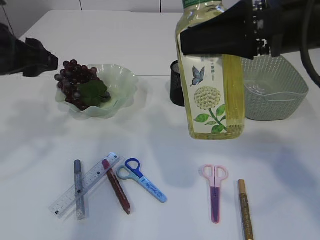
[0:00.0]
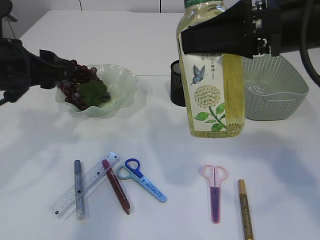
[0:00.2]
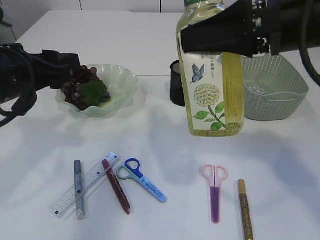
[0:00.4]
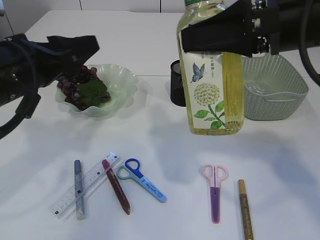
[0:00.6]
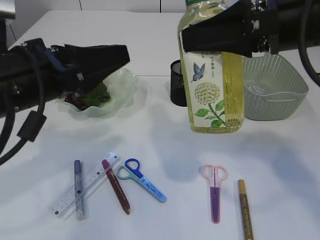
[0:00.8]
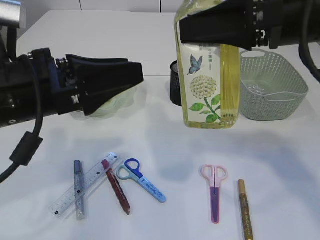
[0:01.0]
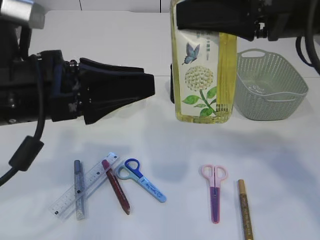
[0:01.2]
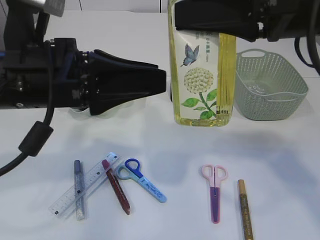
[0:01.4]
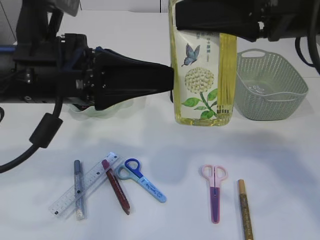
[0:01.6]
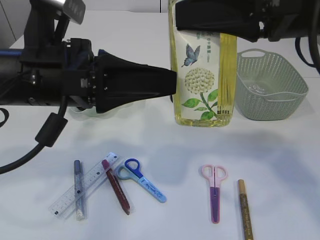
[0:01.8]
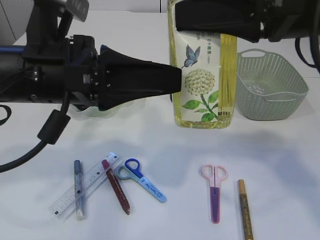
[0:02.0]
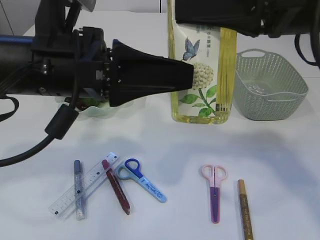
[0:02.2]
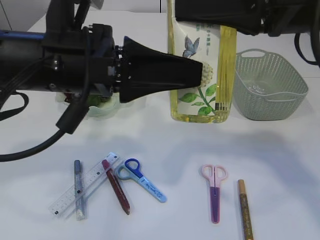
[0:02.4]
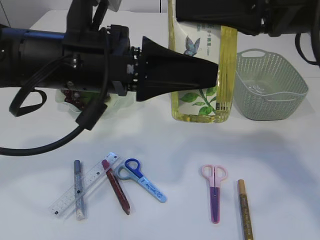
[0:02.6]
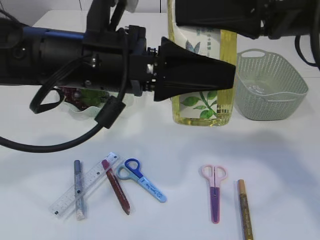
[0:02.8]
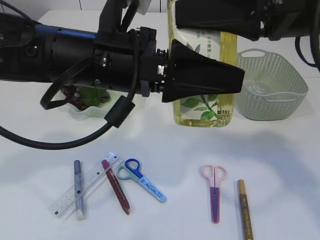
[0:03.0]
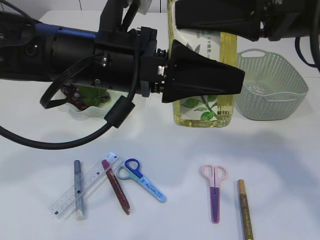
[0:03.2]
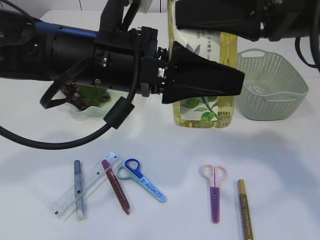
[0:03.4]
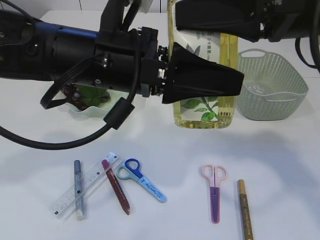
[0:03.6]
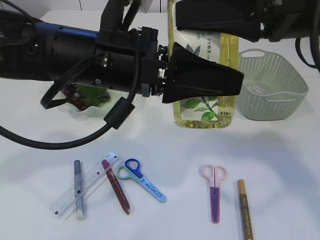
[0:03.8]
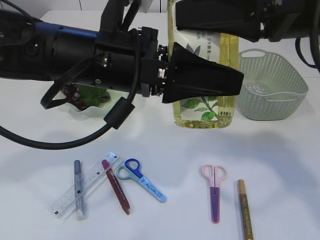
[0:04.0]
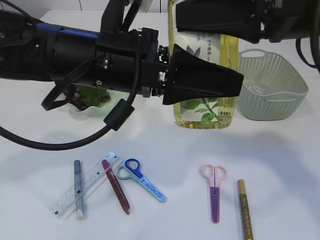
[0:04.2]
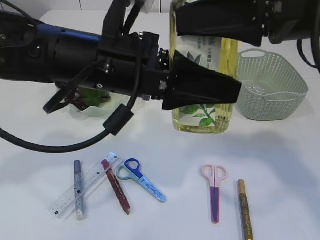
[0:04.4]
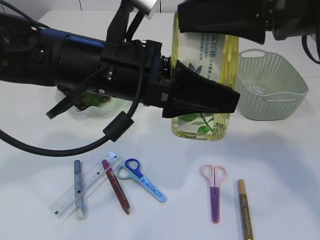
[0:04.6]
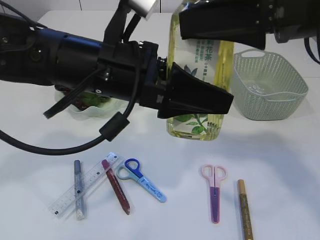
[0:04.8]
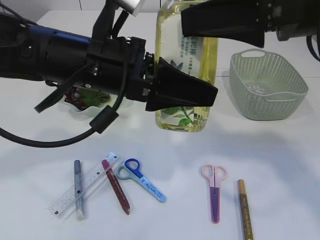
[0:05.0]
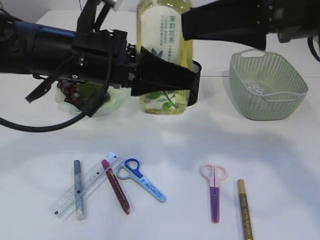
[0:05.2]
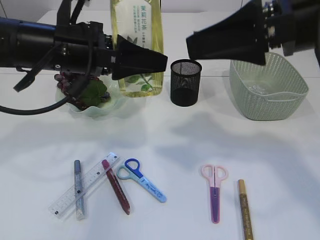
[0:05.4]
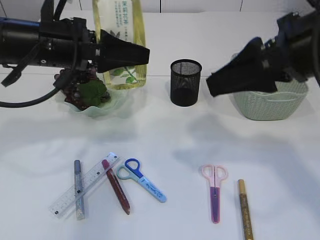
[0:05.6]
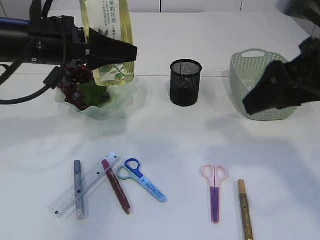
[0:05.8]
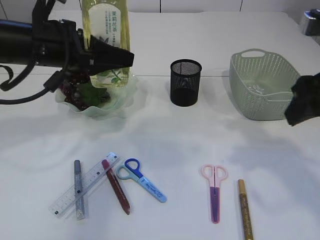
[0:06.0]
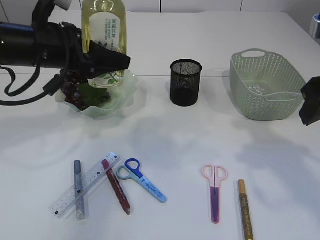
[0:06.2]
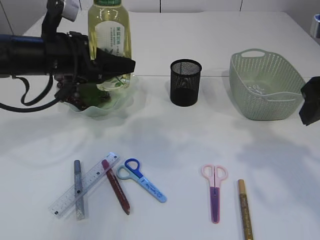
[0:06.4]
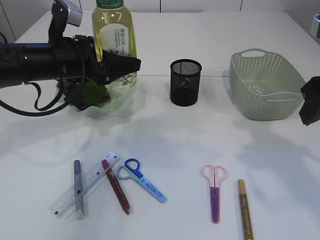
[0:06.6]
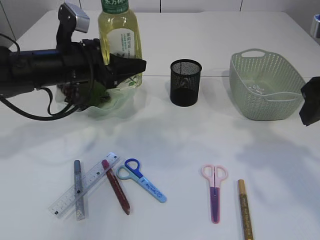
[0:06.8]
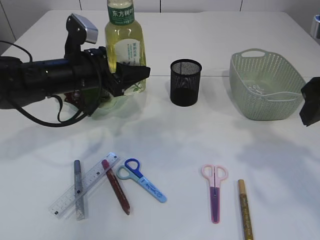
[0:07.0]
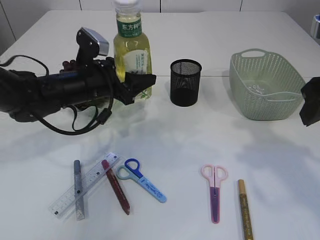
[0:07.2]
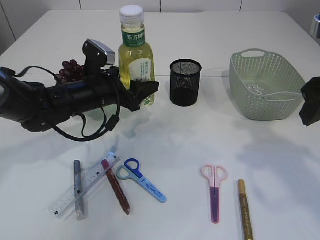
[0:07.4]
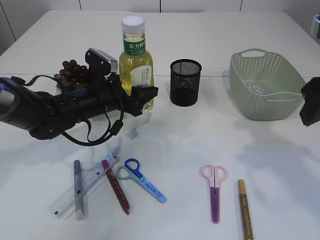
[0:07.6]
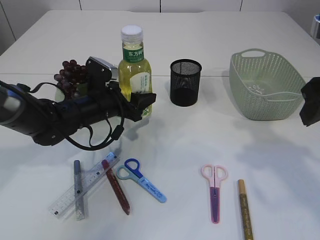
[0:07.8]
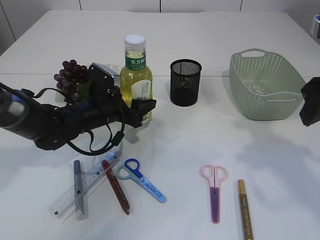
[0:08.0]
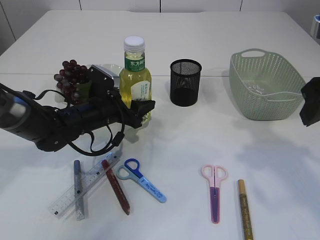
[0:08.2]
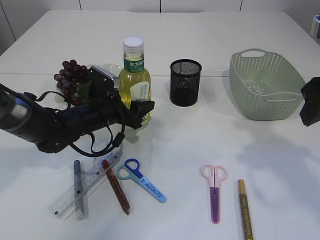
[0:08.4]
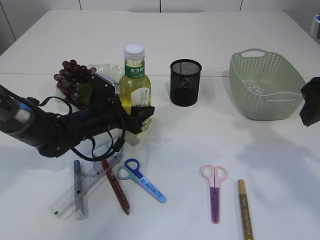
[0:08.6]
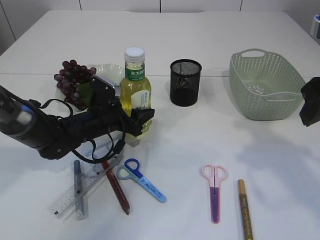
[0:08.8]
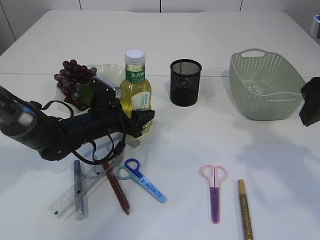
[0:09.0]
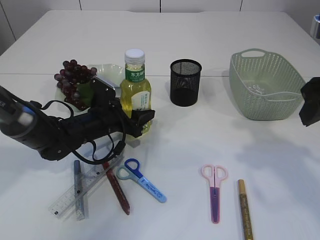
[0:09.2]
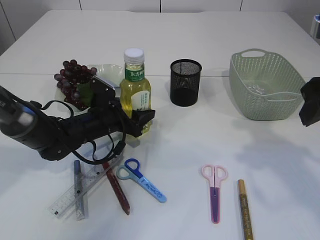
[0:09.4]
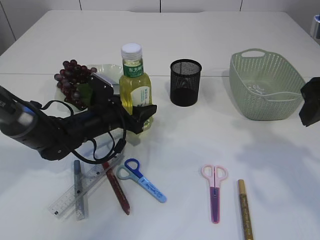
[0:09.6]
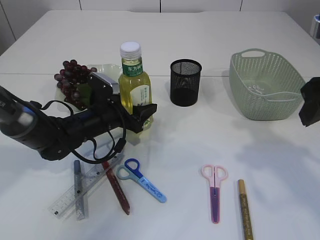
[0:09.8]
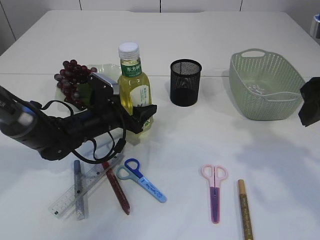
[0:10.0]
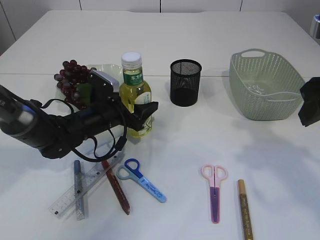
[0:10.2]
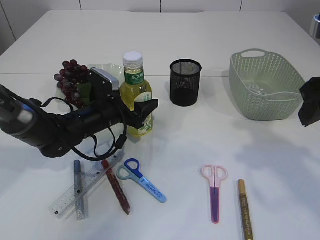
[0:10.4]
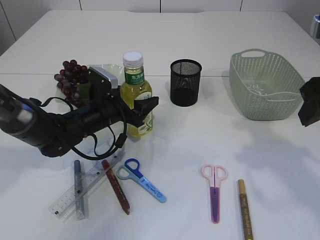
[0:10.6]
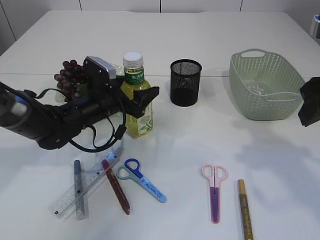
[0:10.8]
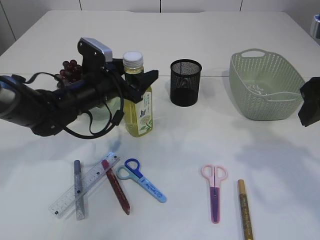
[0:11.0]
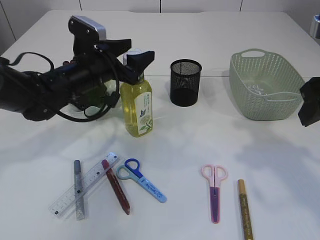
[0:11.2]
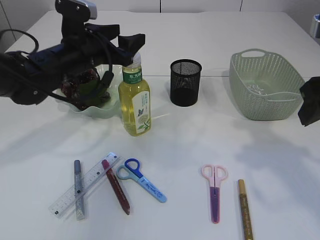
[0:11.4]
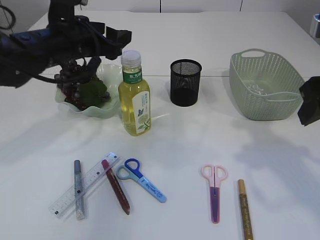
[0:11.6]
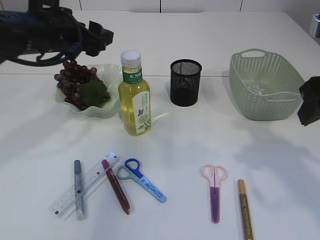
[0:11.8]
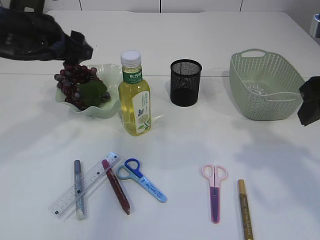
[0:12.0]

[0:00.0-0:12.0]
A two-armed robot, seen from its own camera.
Step, 0:00.0 to 0:05.4: transfer the bottle to the left arm.
Step, 0:05.6 to 0:11.6: Place the bottle.
0:00.0 to 0:01.6: The left gripper moves to the right and backward, approximately 15 cm.
0:01.6 to 0:03.0: The left gripper goes some 5 cm to the right.
0:03.0 to 0:04.4: The grippers stay close to where they were, moving slightly.
0:04.4 to 0:06.0: The left gripper goes some 15 cm to the left and forward. The right gripper shifts about 10 cm to the right and downward.
0:06.0 to 0:07.6: The left gripper shifts about 15 cm downward.
0:07.6 to 0:09.0: The left gripper goes some 5 cm downward.
0:09.0 to 0:10.4: The grippers make only small movements.
0:10.4 to 0:12.0: The left gripper heads upward, covering roughly 20 cm.

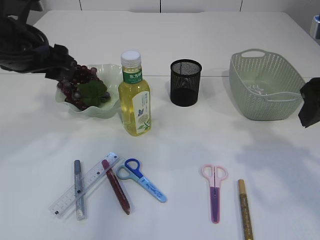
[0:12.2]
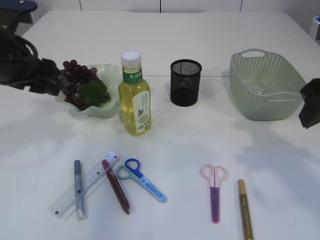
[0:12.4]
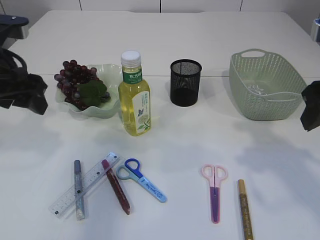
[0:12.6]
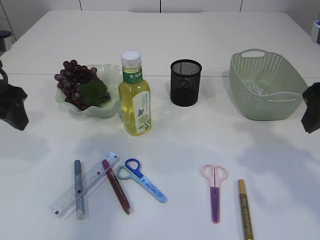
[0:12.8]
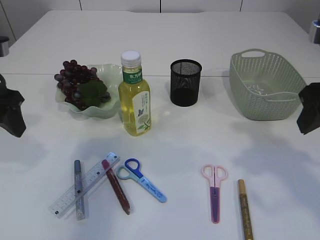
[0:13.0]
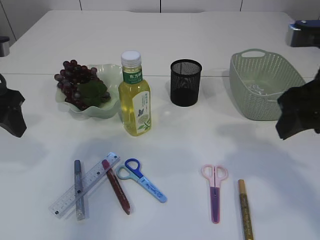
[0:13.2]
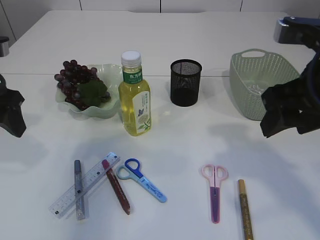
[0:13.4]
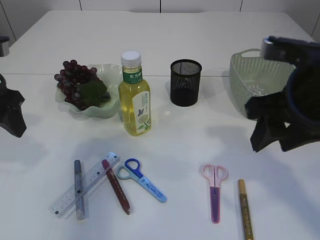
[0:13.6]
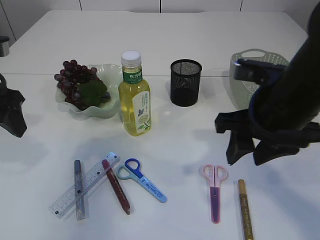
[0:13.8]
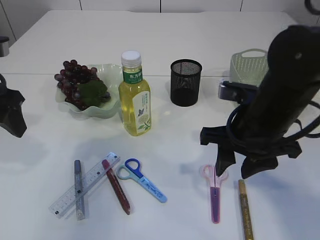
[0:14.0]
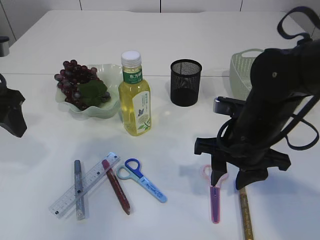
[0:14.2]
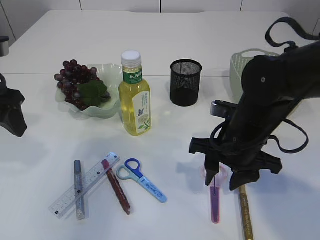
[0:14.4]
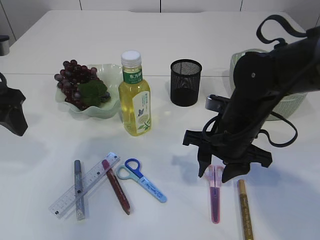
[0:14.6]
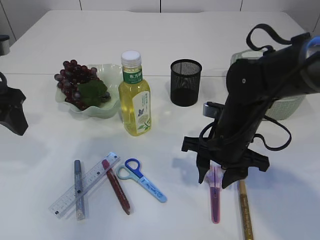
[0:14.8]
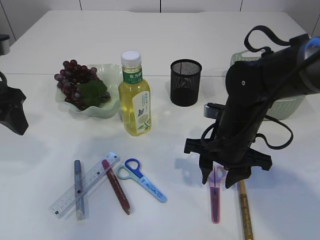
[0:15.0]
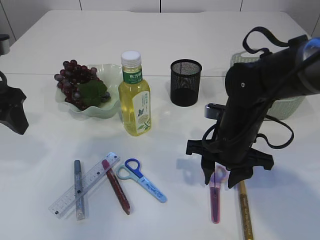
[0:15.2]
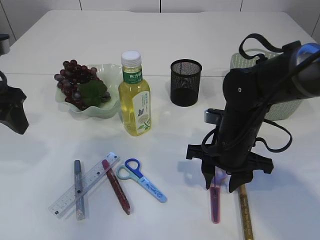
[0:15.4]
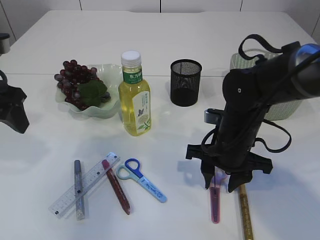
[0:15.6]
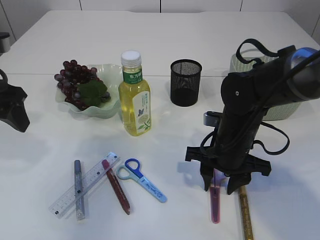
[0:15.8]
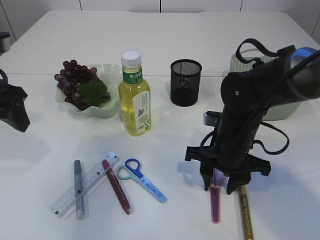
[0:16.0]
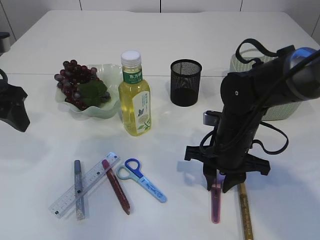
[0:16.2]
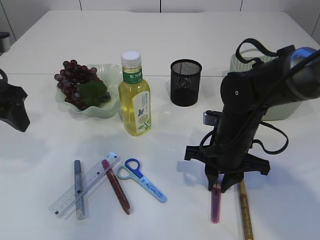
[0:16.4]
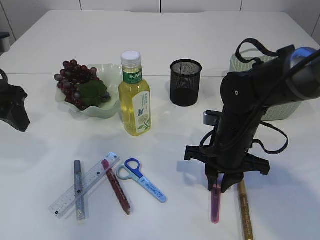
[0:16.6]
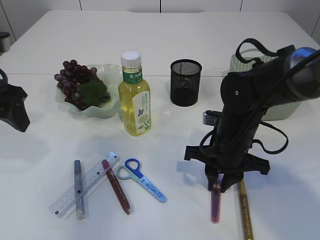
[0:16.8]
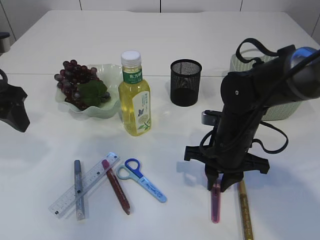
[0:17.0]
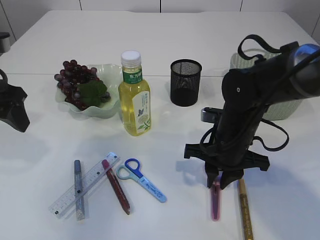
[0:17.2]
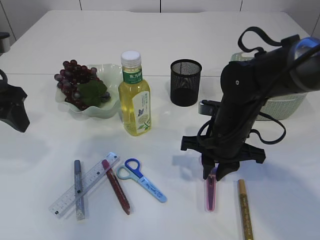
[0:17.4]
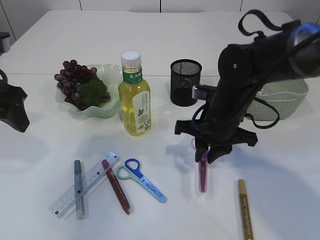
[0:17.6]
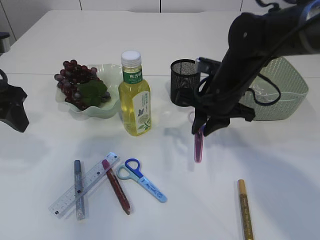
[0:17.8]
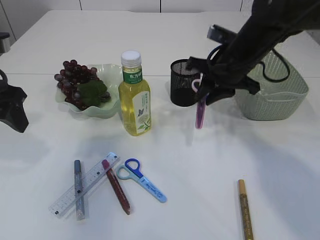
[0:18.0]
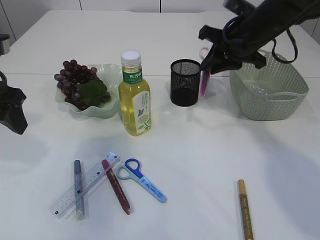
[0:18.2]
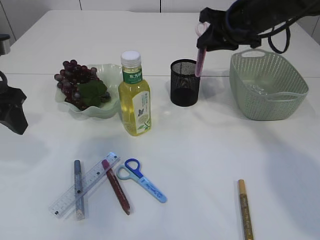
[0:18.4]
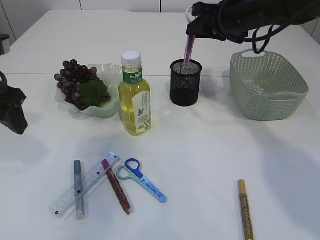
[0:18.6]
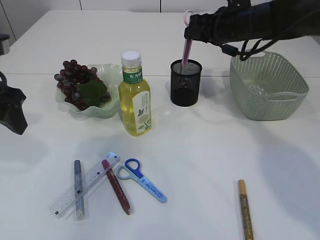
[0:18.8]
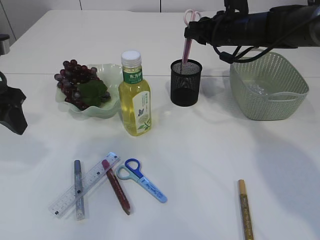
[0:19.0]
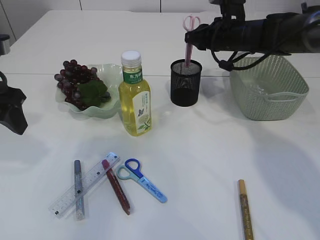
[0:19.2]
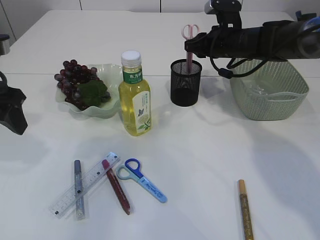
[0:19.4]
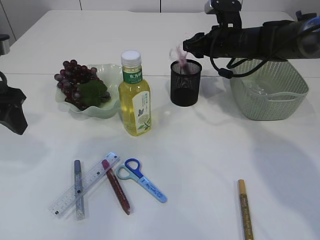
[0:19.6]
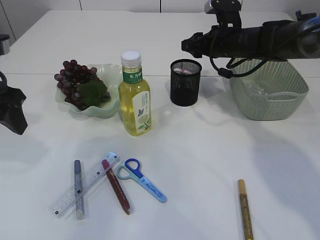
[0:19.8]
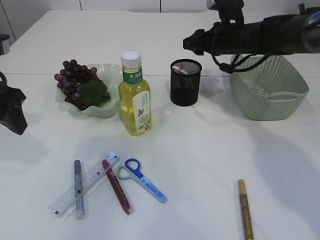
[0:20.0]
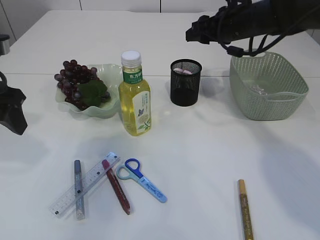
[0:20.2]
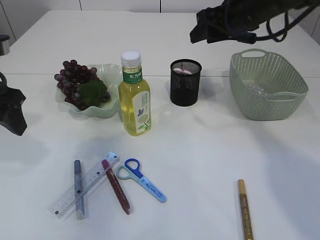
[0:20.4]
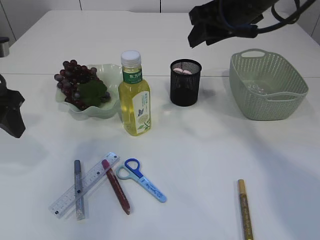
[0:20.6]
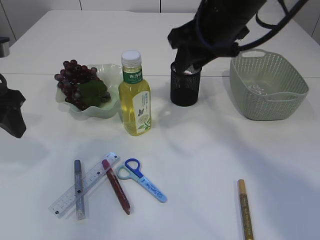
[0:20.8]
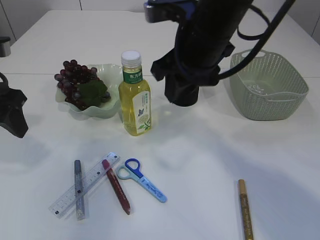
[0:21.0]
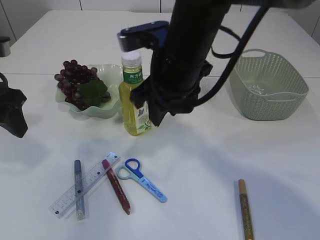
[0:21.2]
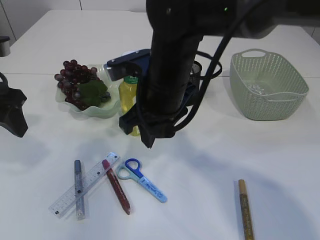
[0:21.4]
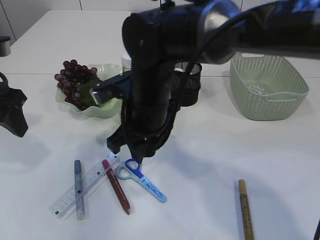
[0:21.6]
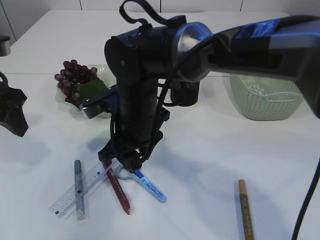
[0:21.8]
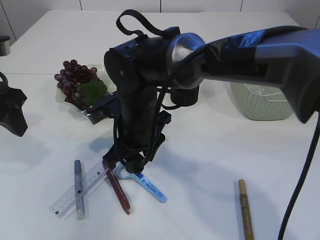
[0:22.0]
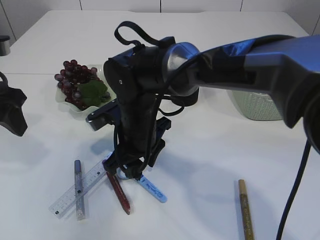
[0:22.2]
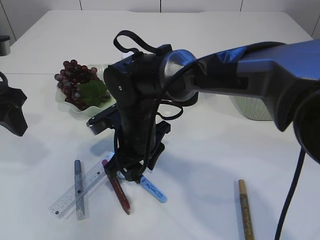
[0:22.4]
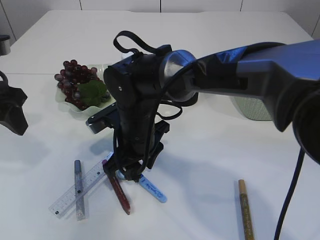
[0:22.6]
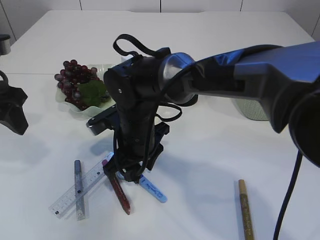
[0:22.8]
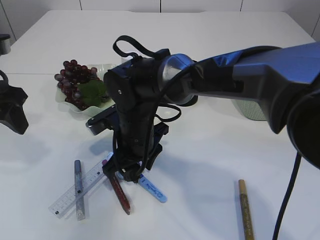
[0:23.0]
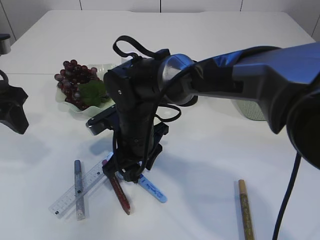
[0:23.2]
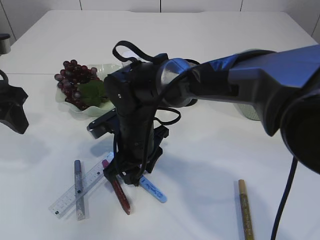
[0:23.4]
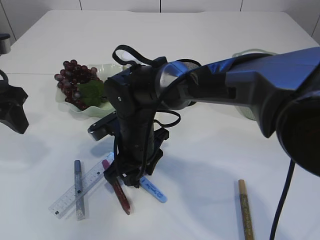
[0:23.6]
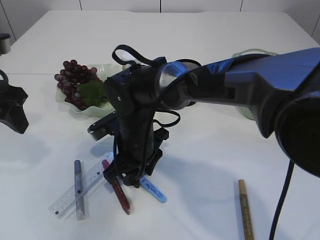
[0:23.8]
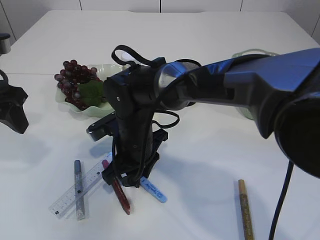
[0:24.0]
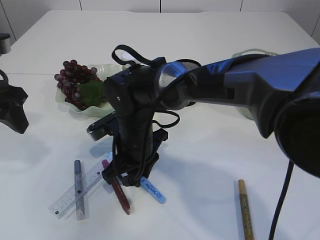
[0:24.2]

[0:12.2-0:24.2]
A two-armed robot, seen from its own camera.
Step, 0:12.2 to 0:17.8: pick up the pink scissors.
Step, 0:18.0 to 0:20.0: Place the pink scissors into the pen holder.
0:12.2 to 0:13.8: The left gripper moves to the left, approximately 5 cm. The right gripper shifts about 10 cm to the left.
0:13.8 to 0:15.2: The right gripper moves downward and forward, some 15 cm.
0:15.2 to 0:16.6: The right gripper closes up.
0:16.6 to 0:18.2: The right gripper shifts about 15 cm upward and forward.
0:18.2 to 0:19.8: The right gripper shifts some 10 cm forward, and opens.
0:19.8 to 0:21.2: The right gripper goes some 25 cm backward, to the left and upward.
0:21.2 to 0:22.6: The right gripper shifts about 15 cm downward and to the left.
0:22.6 to 0:24.2: The grippers stay close to where they were, moving slightly.
